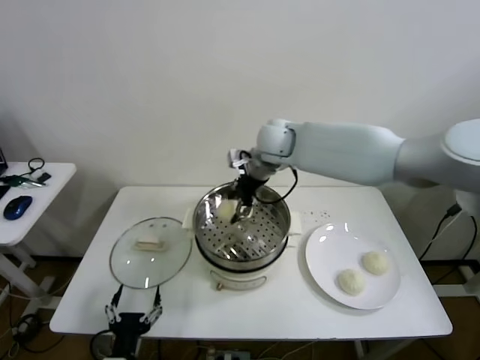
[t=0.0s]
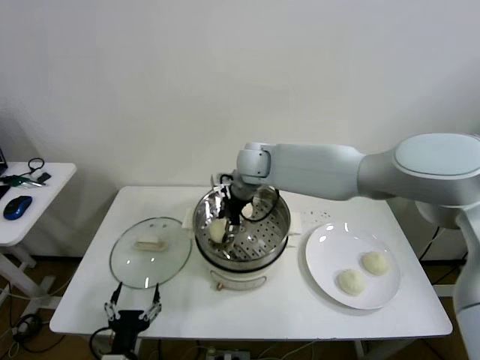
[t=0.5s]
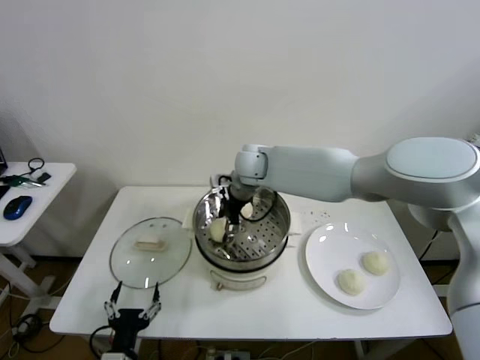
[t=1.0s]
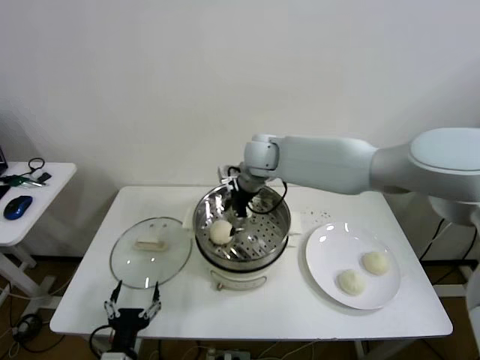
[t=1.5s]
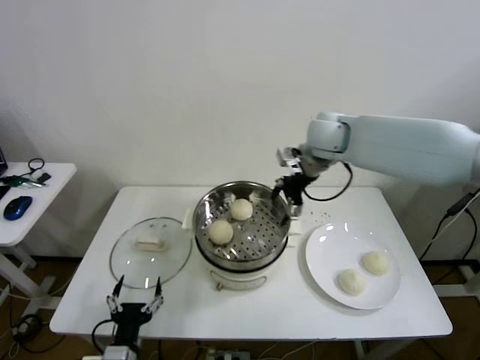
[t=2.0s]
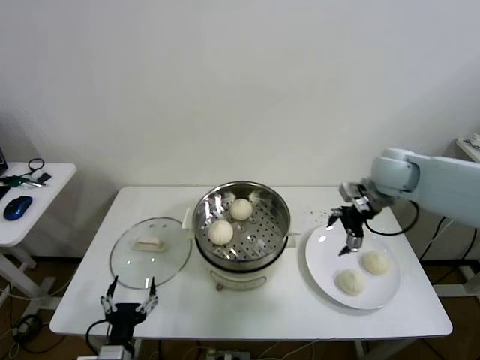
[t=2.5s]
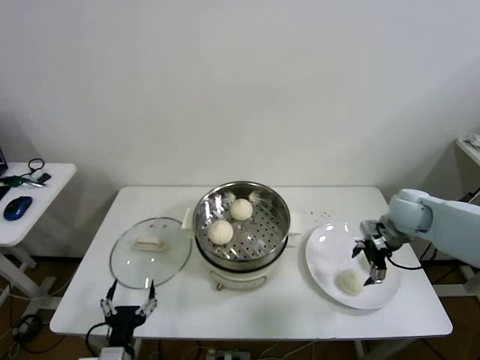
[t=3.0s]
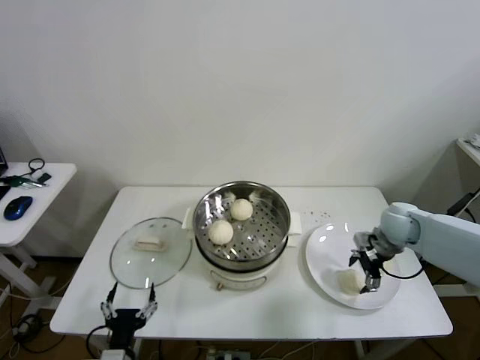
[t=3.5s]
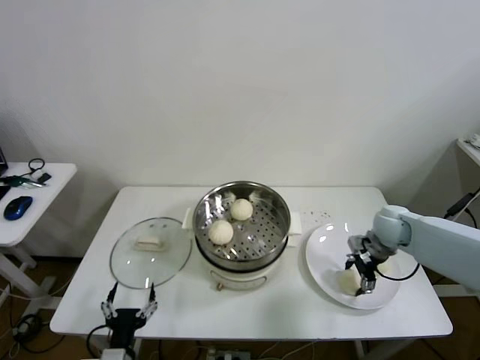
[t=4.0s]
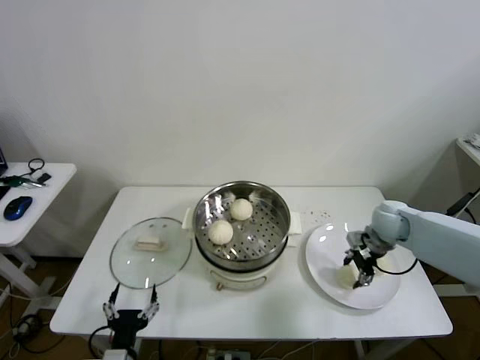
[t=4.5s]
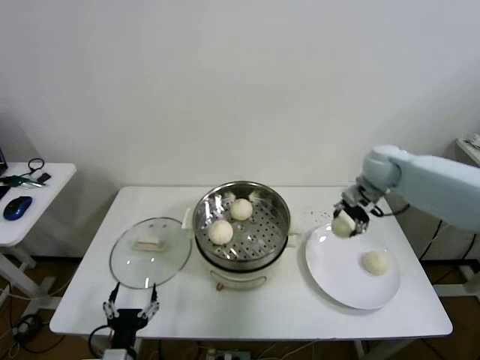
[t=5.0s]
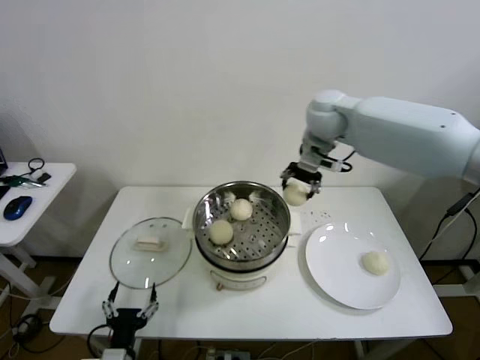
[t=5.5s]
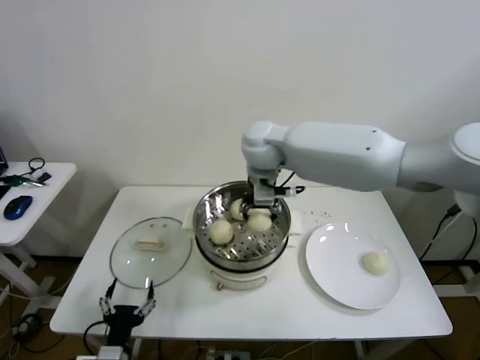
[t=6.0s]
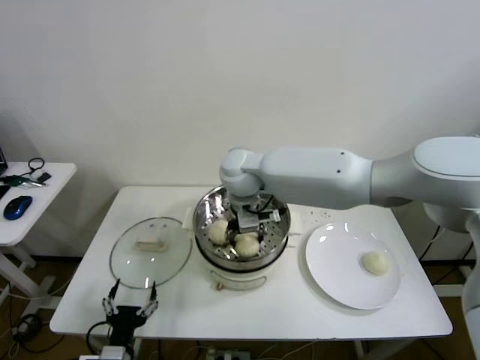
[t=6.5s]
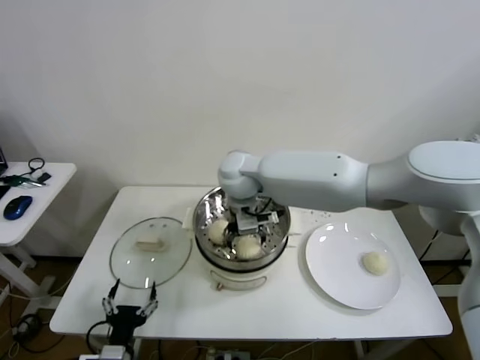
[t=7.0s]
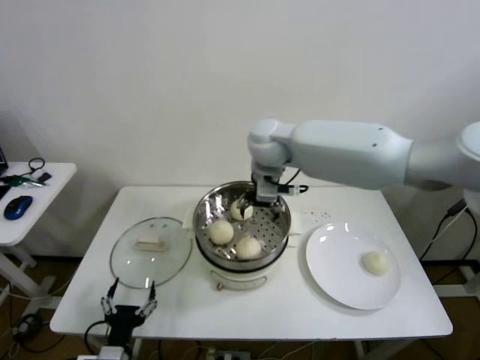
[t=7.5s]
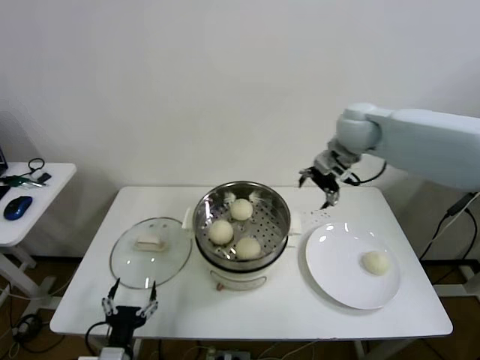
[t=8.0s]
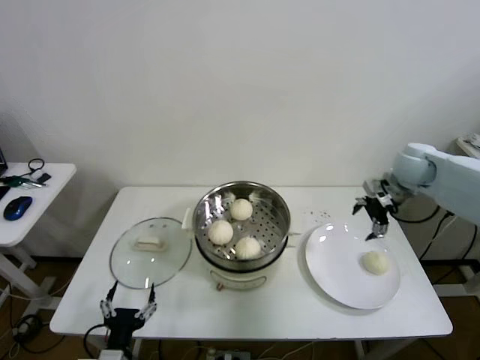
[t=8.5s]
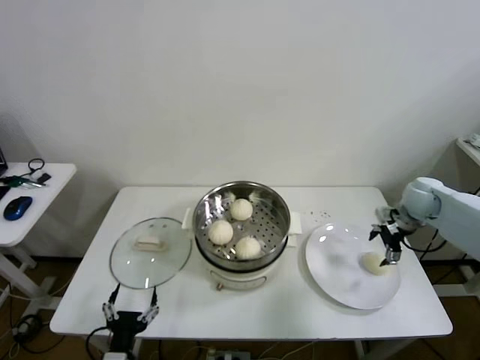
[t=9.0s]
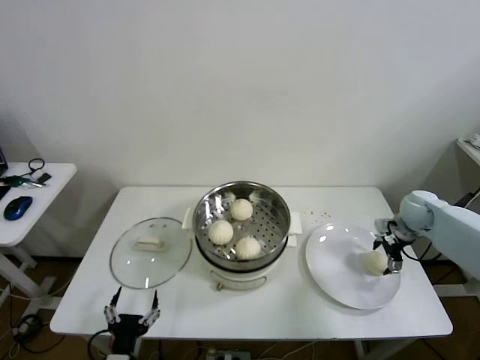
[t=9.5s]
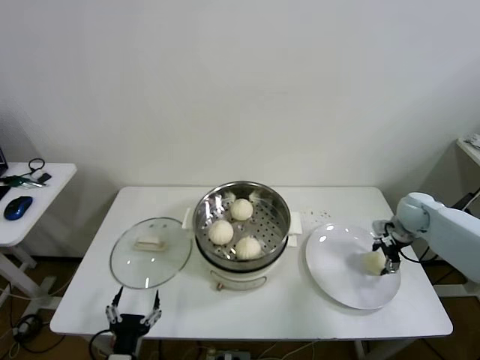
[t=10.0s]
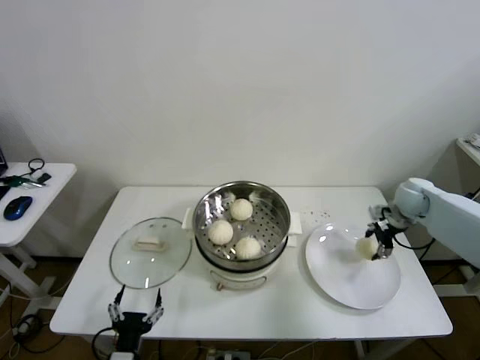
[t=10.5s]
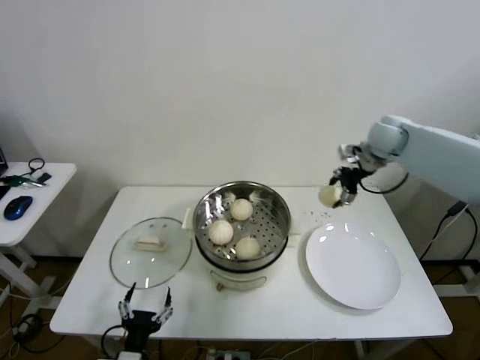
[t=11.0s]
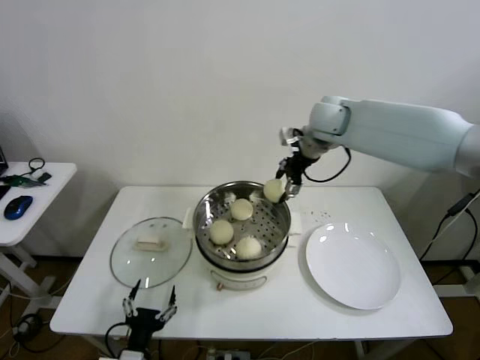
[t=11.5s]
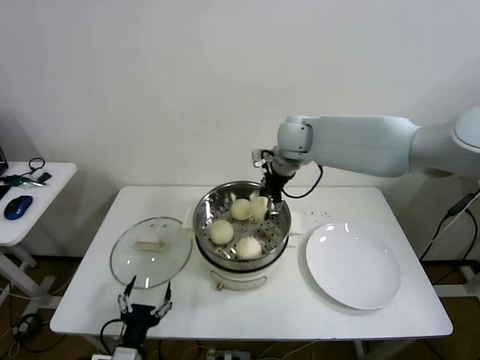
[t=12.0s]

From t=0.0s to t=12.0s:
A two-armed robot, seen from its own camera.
Step, from t=1.5s to t=4.0s: Grasp the baozi in the plate with right gripper.
Step, from t=4.5s to t=6.5s: Place the baozi on the steamer with right gripper.
Step, from t=7.0s to t=10.0s: Grasp the baozi in the plate with right gripper.
From t=0.0s to t=2.0s: The right gripper heads to the right, covering roughly 15 cm, and opens up.
From t=2.0s to t=4.0s: The right gripper travels downward and to the right by some 25 cm, and closes up.
From t=4.0s to t=6.0s: The right gripper is displaced to the left and upward by some 40 cm, and closes.
From t=6.0s to t=8.0s: The right gripper shifts roughly 20 cm to the right, and opens its fingers.
From t=8.0s to t=10.0s: The right gripper is displaced downward and to the right by some 30 cm, and closes.
From t=10.0s to t=12.0s: The right gripper travels to the left and upward by approximately 40 cm.

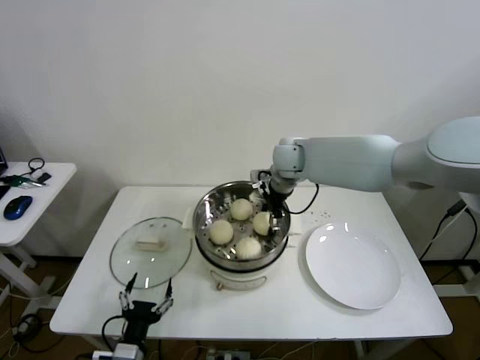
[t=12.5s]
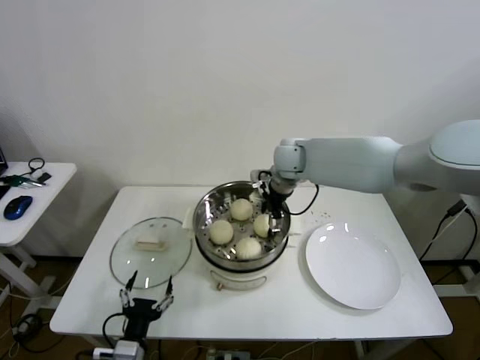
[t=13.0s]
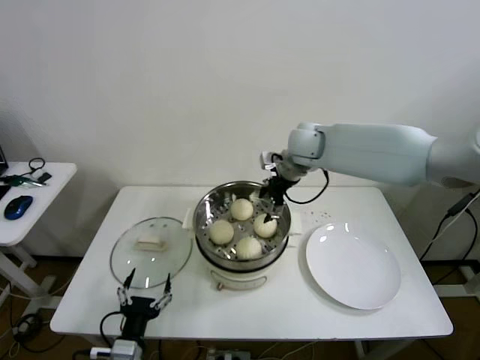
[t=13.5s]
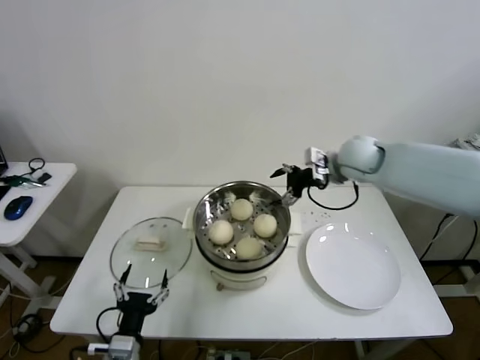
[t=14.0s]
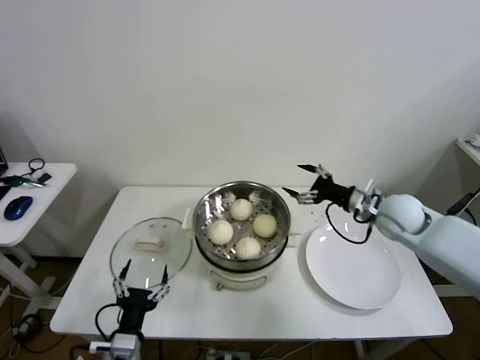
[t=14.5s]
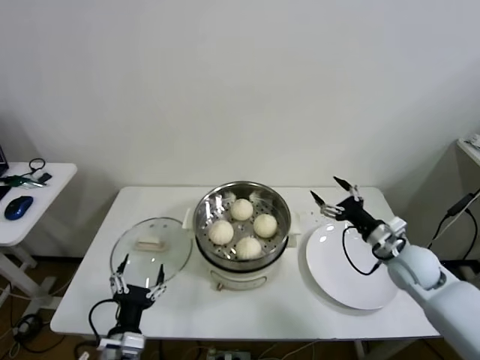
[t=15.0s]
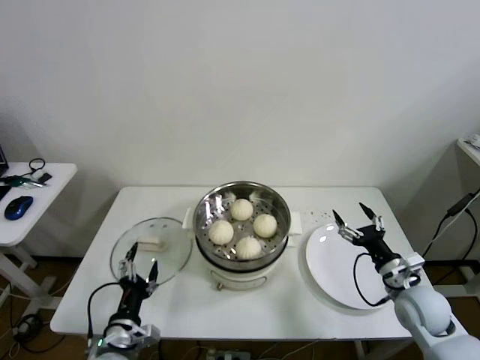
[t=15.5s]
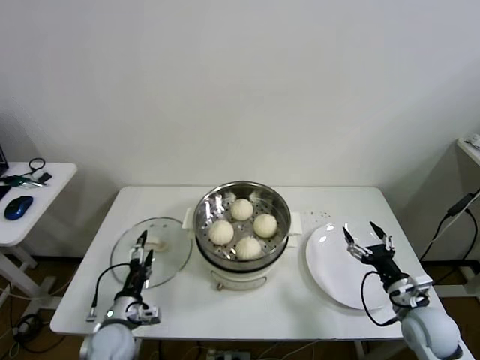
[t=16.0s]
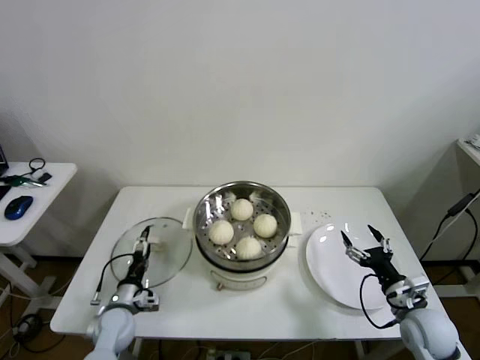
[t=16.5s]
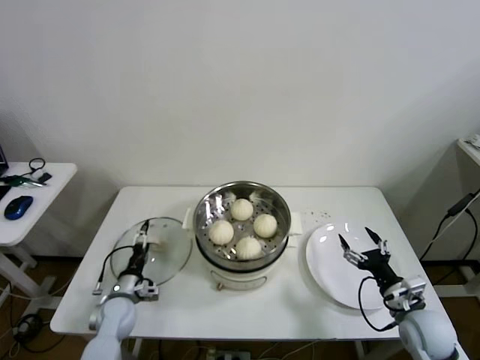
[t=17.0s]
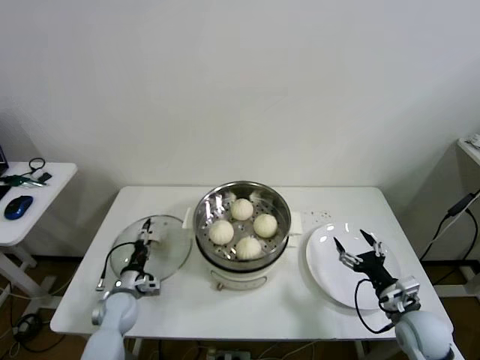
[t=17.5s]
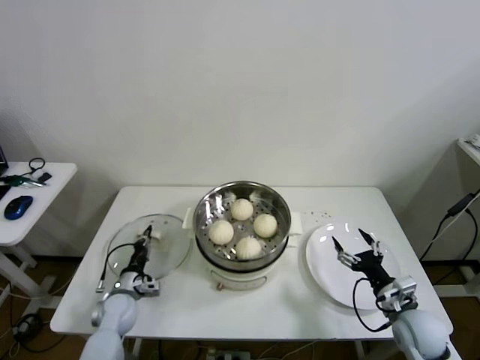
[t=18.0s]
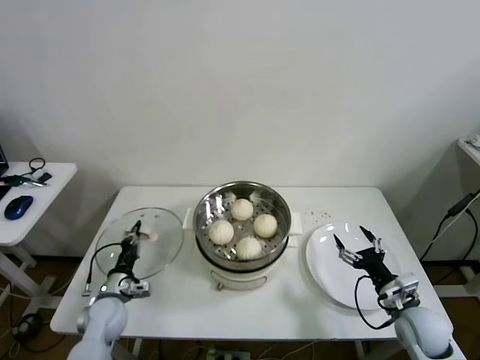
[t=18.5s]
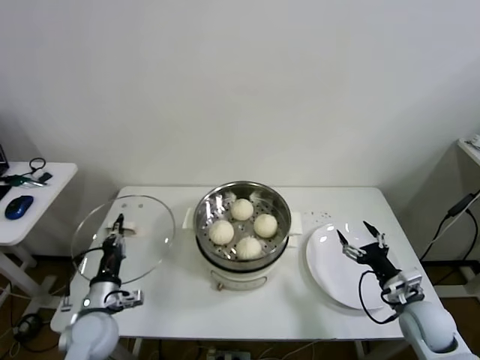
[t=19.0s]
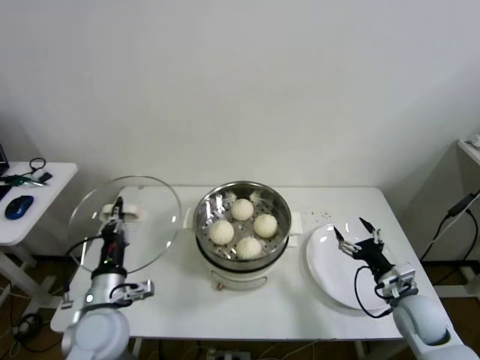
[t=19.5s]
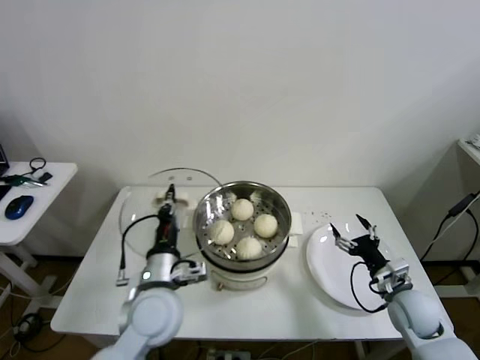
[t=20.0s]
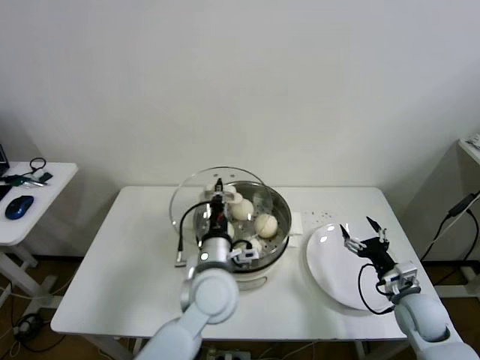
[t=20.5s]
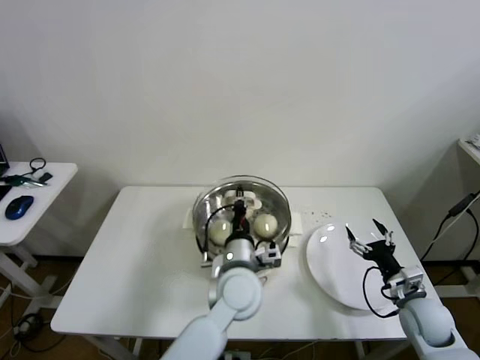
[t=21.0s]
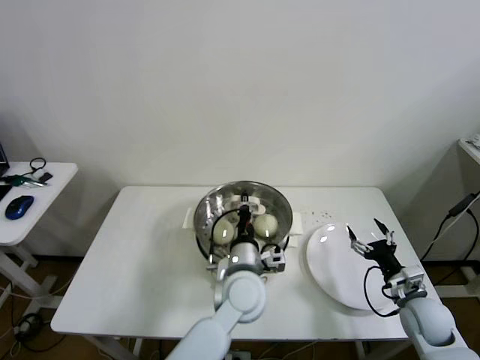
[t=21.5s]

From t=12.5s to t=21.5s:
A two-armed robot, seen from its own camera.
Step, from t=13.5s to t=18.0s: Grasp the pot lid with left gripper.
From t=12.5s to t=14.5s: The right gripper heads to the right and backward, covering roughly 25 cm, and opens.
From t=14.5s to t=17.0s: The right gripper shifts roughly 25 cm backward and downward; the left gripper heads forward, downward and to the left, covering approximately 20 cm.
From t=17.0s to t=19.5s: The left gripper travels upward and backward by about 20 cm, and closes up.
From t=19.5s to t=21.5s: The left gripper moves to the right, some 30 cm.

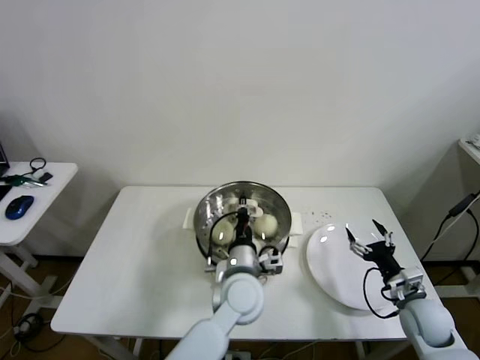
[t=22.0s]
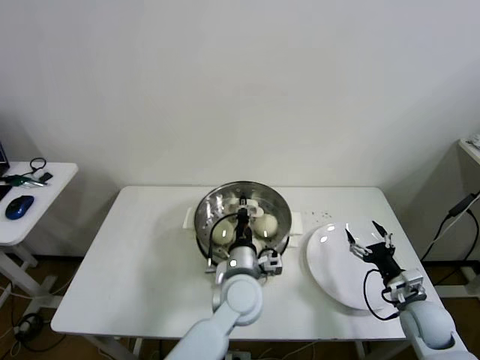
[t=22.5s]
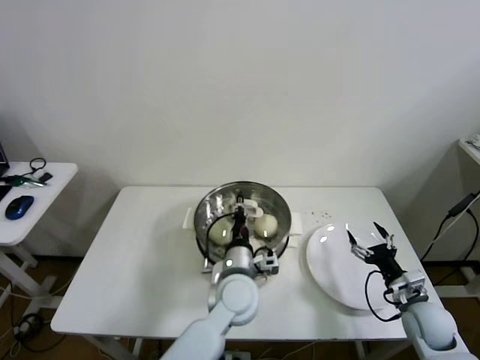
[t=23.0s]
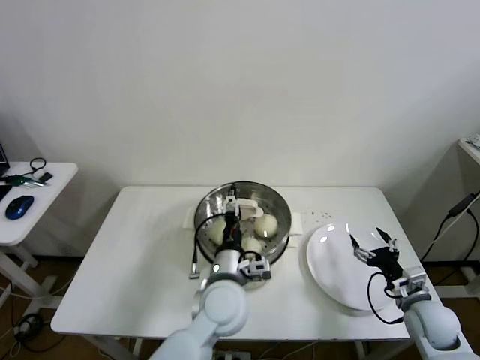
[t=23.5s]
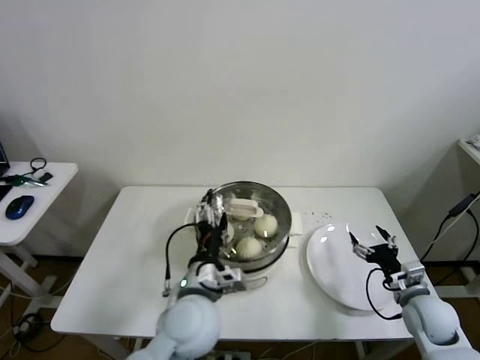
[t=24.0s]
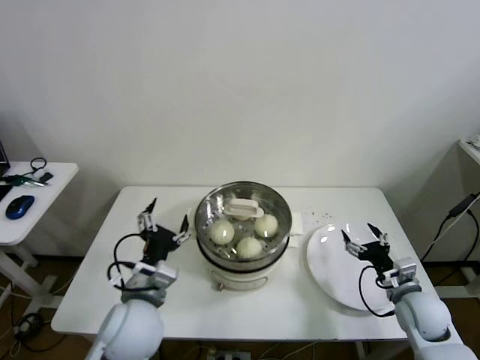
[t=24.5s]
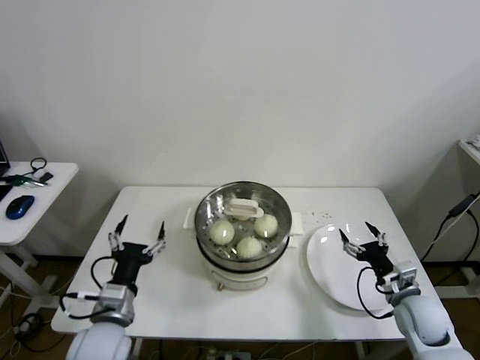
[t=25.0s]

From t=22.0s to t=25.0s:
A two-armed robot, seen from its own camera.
From t=22.0s to t=23.5s: The left gripper opens up.
From t=23.5s to t=25.0s: The left gripper is displaced to the left by about 20 cm.

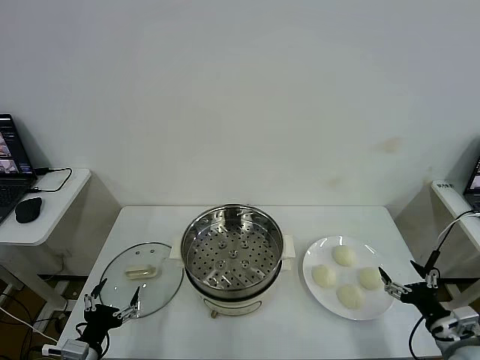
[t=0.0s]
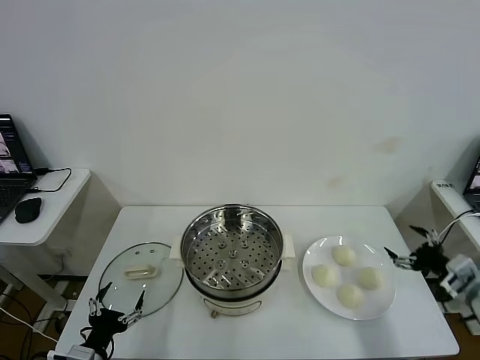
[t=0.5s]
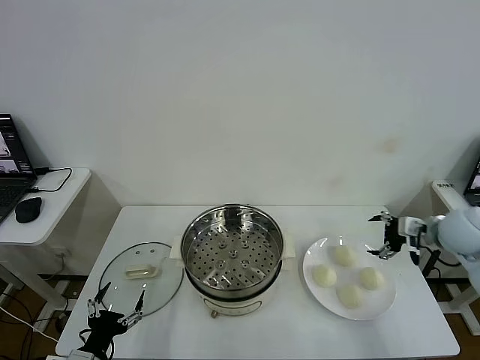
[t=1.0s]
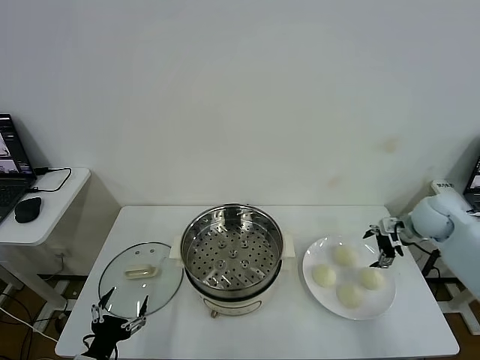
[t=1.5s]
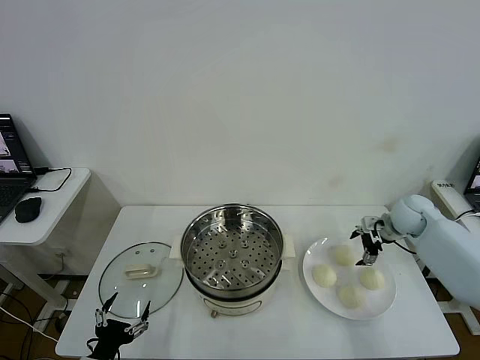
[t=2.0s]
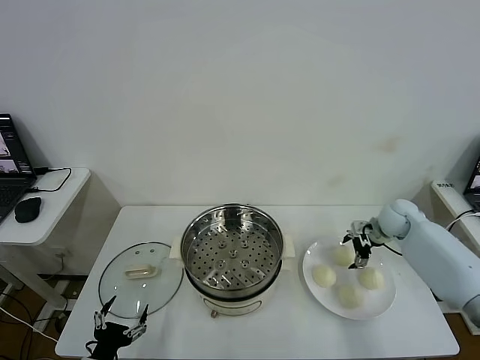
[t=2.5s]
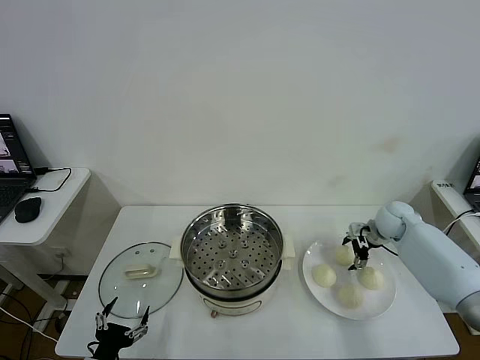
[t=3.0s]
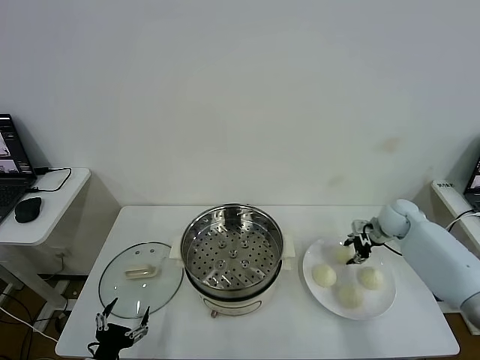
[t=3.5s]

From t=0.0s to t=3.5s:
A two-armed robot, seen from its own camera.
Step, from t=0.0s to t=3.0s: Grasp the baozi in the plate with right gripper.
From t=2.0s to t=3.5s: The right gripper closes.
